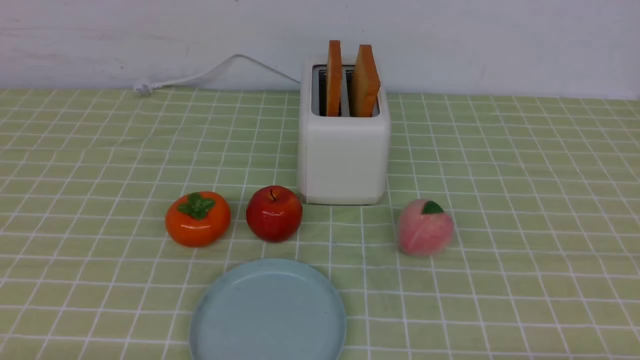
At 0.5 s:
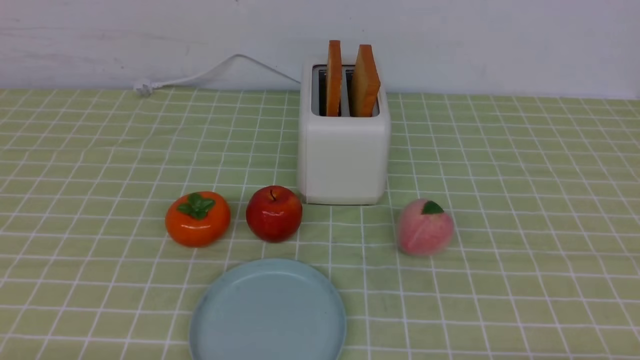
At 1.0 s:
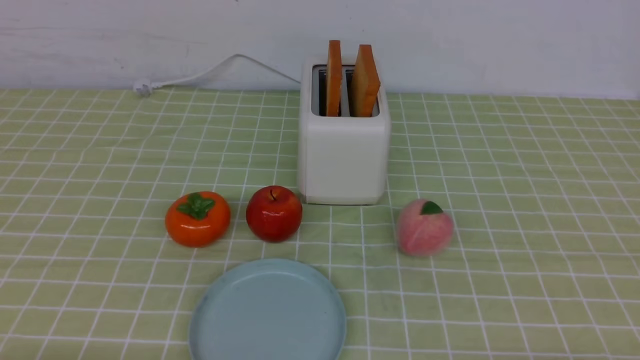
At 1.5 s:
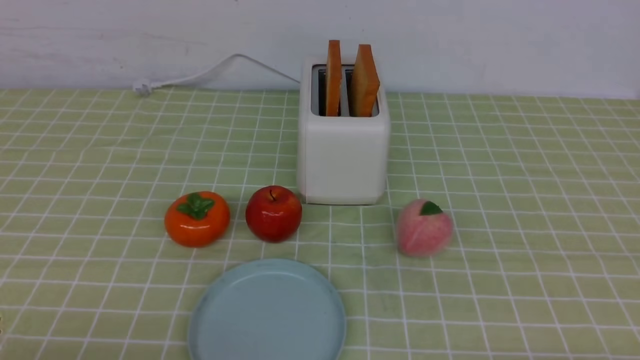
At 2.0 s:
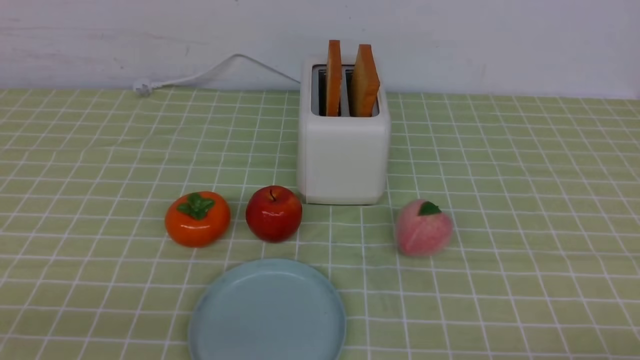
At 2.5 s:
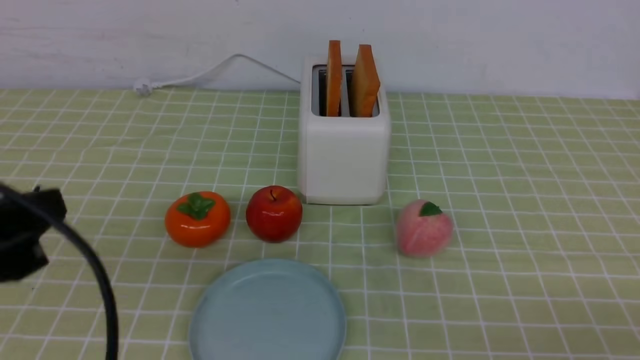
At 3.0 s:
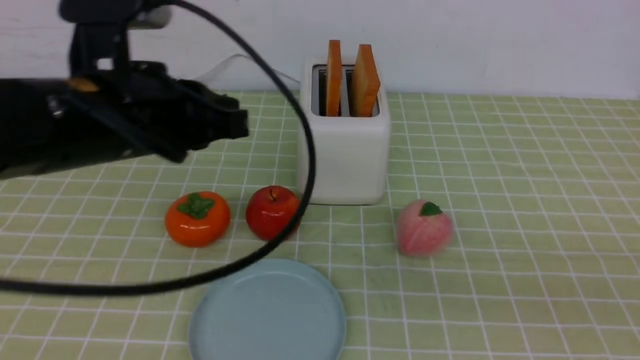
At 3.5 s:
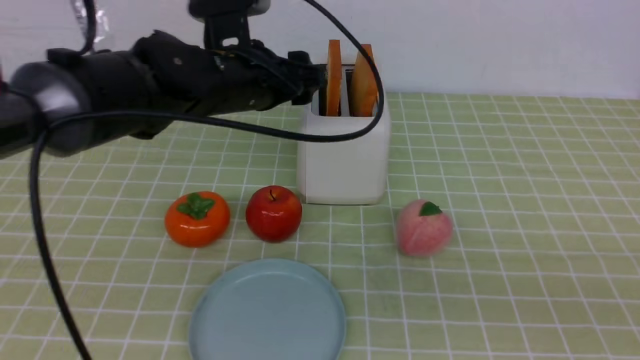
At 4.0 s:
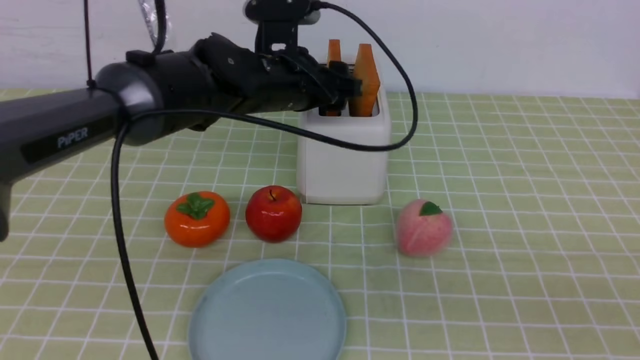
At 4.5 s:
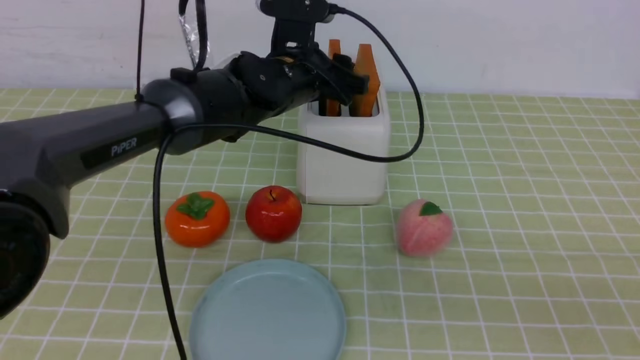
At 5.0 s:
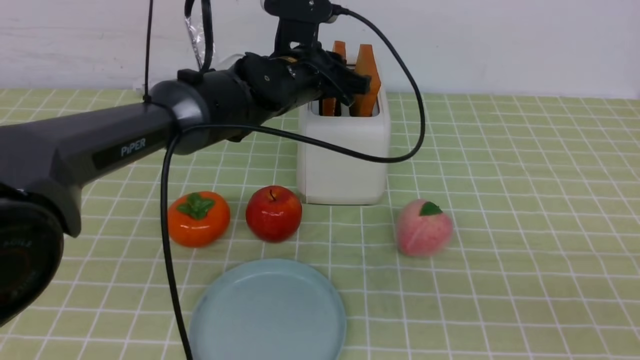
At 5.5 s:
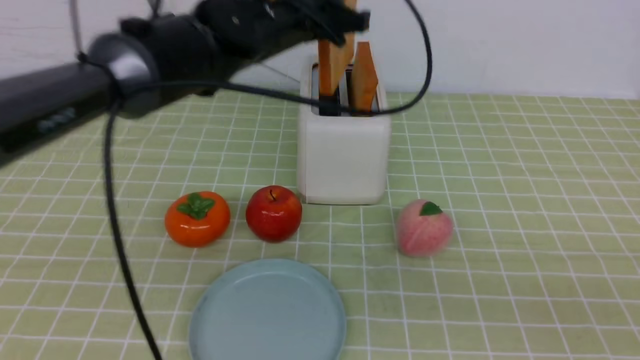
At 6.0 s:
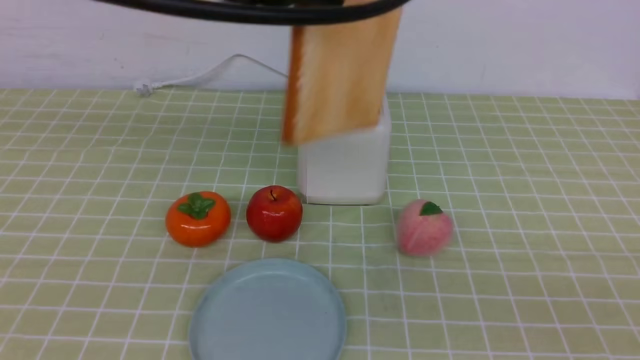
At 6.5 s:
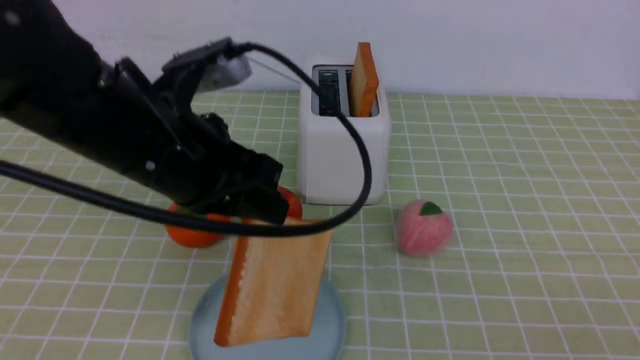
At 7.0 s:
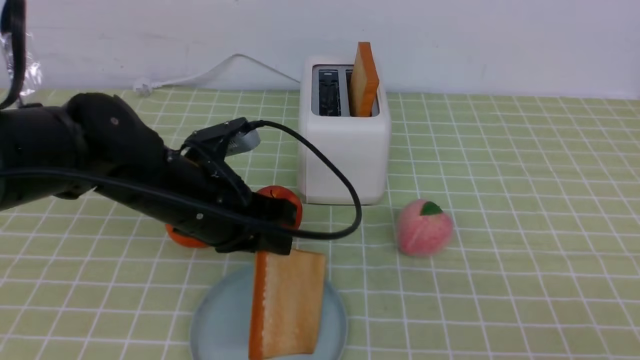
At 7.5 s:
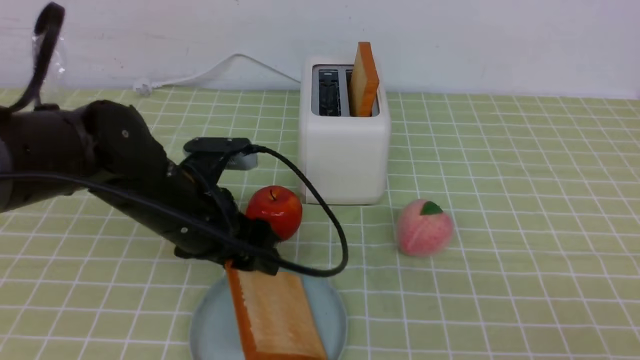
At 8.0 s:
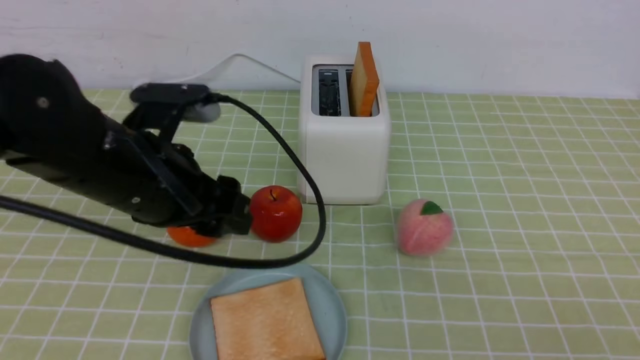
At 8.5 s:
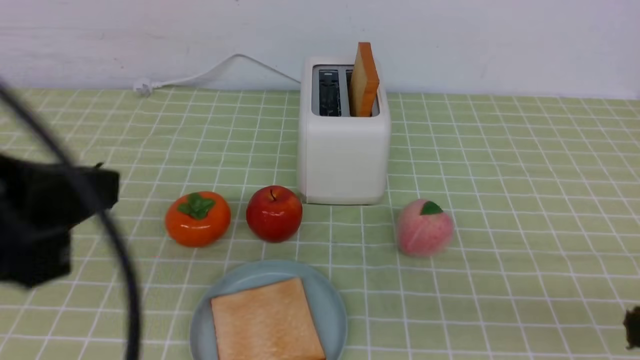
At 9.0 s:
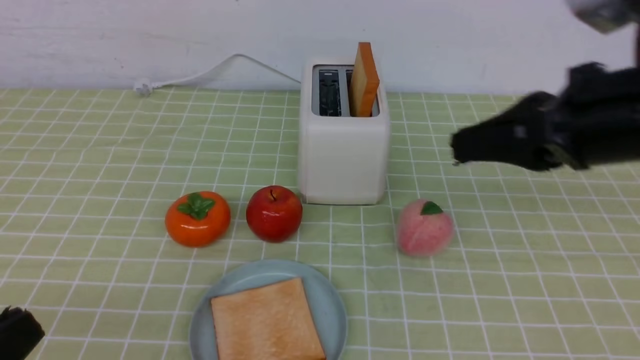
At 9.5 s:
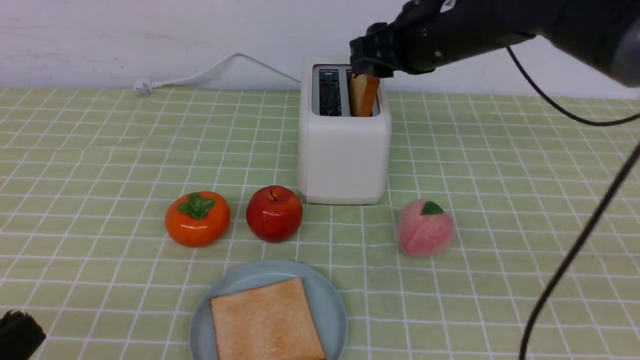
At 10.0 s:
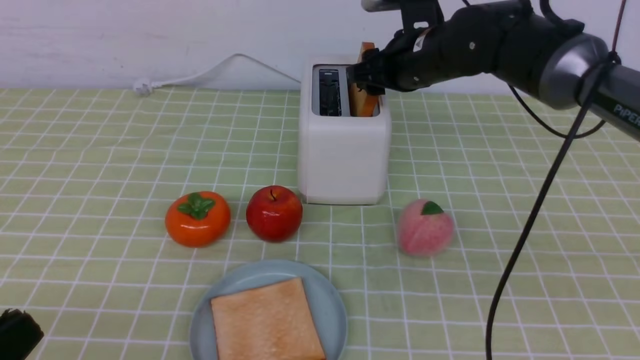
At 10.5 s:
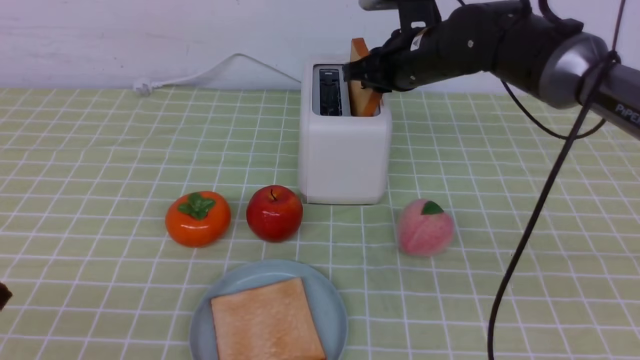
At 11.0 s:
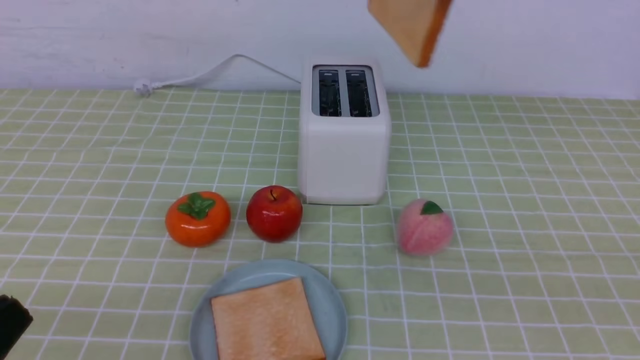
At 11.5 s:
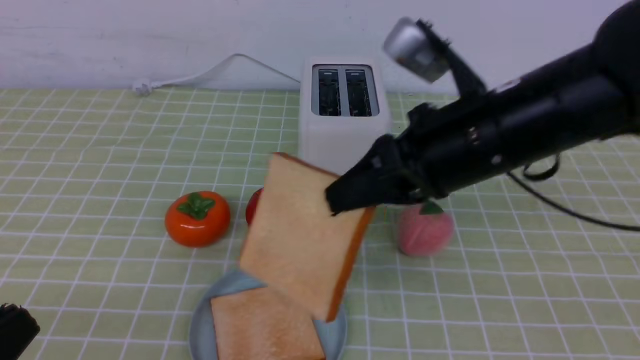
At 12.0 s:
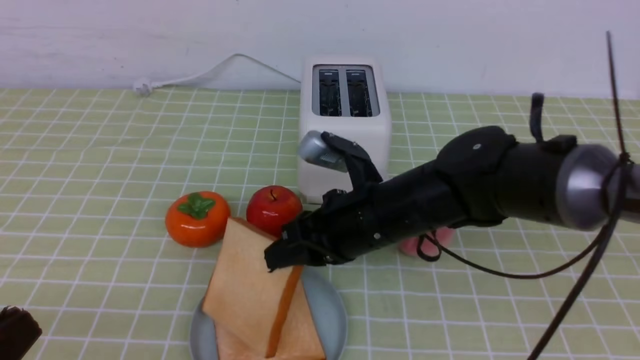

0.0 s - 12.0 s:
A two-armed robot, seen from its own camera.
Task of the whole recording: take toasted bread from bread machine on green coffee tablecloth place on plate.
Step, 0.0 s - 5.5 s: use the left arm to take out a slice of bread.
Step, 6.0 s - 7.5 s: use the left arm to put a slice of bread into the empty plate.
Step, 8.0 s - 10.5 s: use the right arm to take out a slice of bread.
2.0 s - 4.0 s: The left gripper is displaced forward and to the right by some 40 cm, and opens. Meanwhile the right gripper is displaced upward by roughly 15 cm, and closes its fingers.
4.0 s - 6.0 s: The left gripper goes some 20 cm upward and backward, and closes up.
6.0 s - 8.0 s: The left gripper travels downward and to the left by about 15 cm, and opens.
8.0 s - 10.0 s: The left gripper moves backward, roughly 20 cm, and closes. Meanwhile the right gripper is displaced forward by approximately 40 cm, and opens.
10.0 s - 12.0 s: The right gripper heads backward and to the left, covering approximately 15 cm, moves some 15 cm upward and comes back, and closes its fingers.

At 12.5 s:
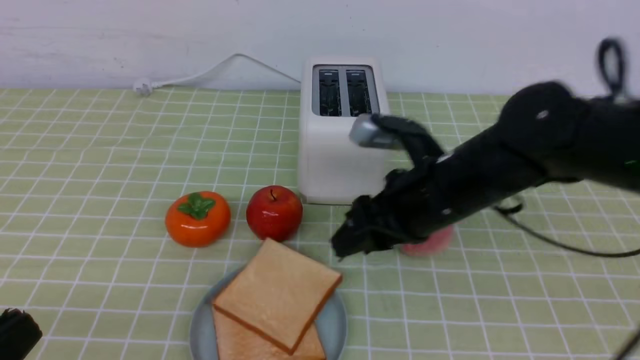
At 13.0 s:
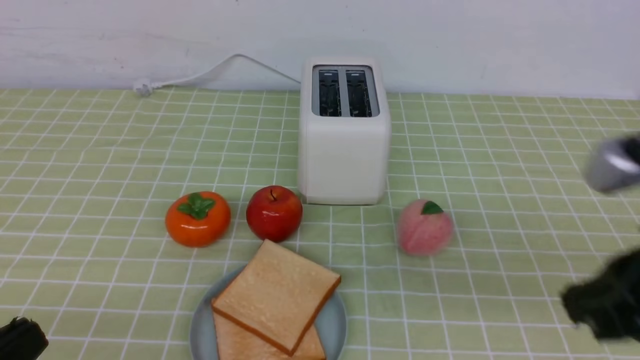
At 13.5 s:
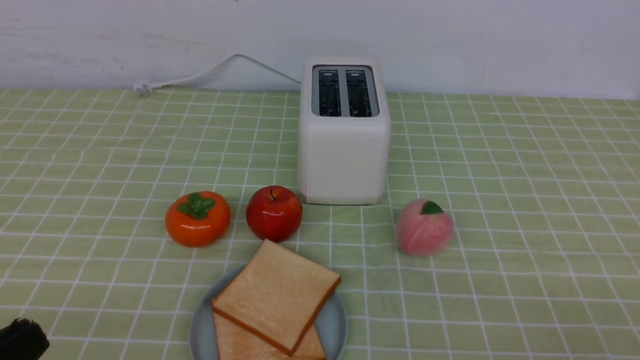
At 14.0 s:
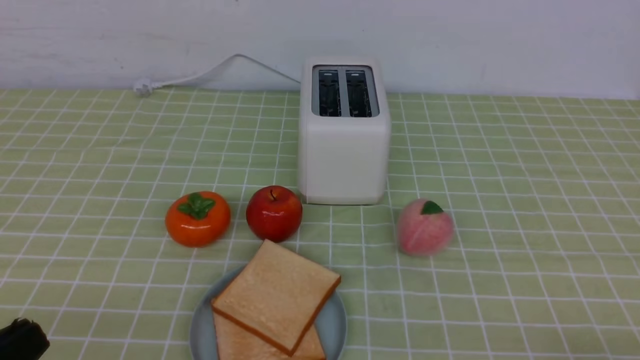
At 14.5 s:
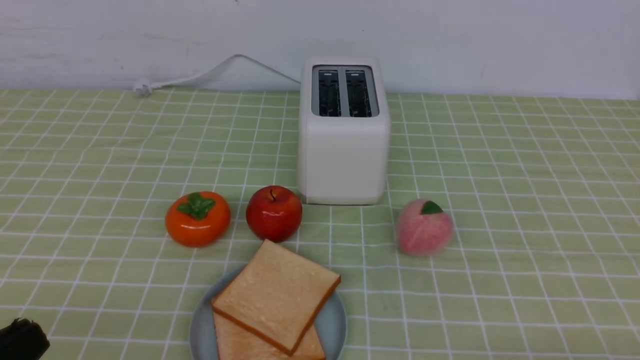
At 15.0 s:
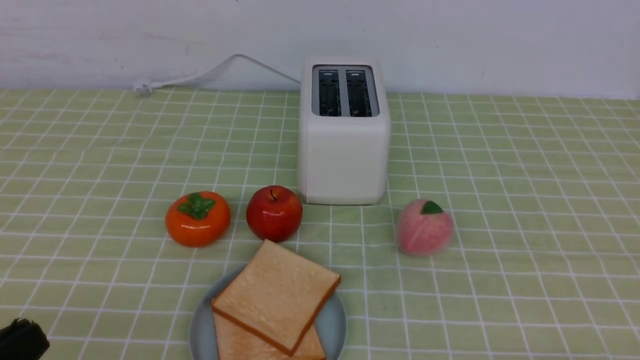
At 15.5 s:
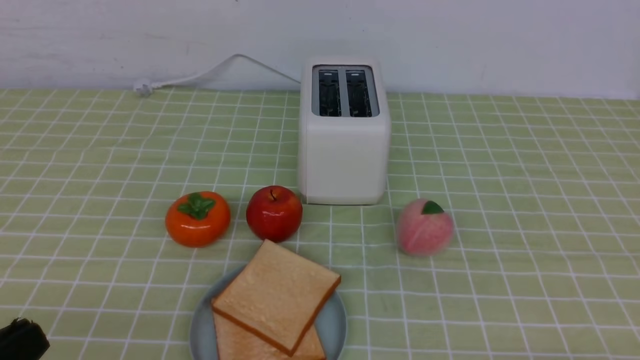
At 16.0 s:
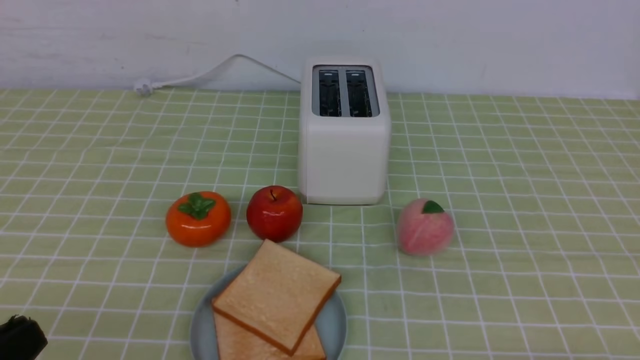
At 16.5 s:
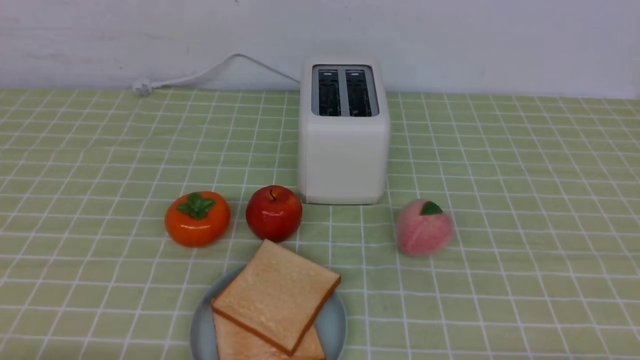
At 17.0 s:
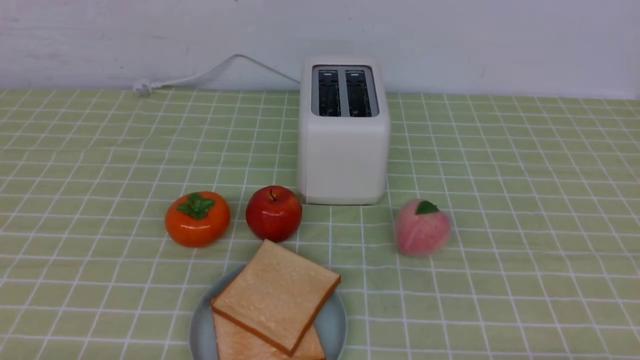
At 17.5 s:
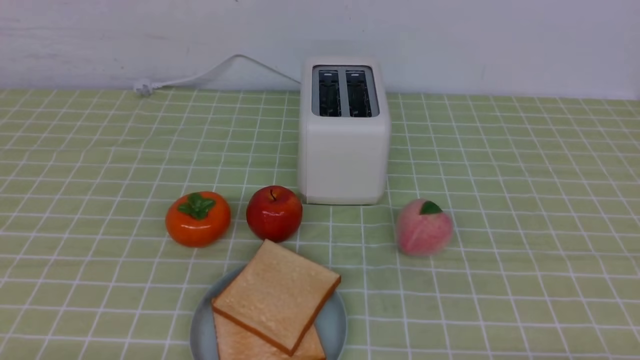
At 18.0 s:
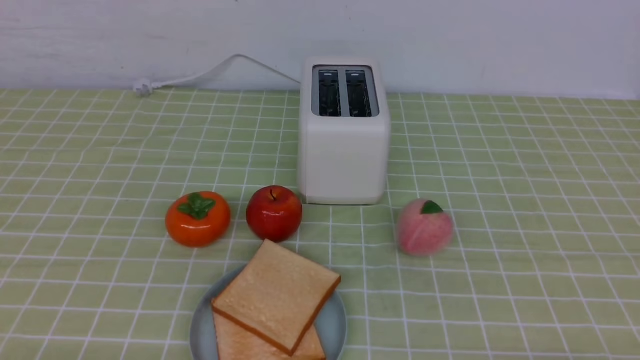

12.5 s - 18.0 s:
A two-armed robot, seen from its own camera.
Task of the whole recording: take toasted bread from bread machine on green coffee tablecloth place on plate.
12.5 s - 14.5 s: The right gripper travels backward and to the right by some 30 cm, and closes up.
16.0 s - 18.0 s: The left gripper travels downward by about 10 cm.
